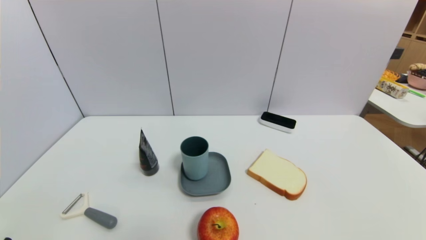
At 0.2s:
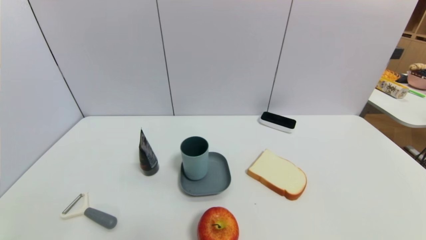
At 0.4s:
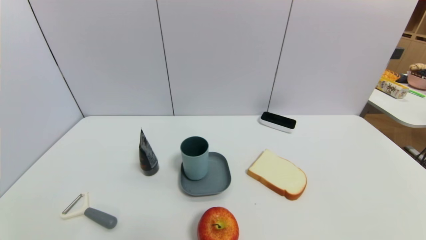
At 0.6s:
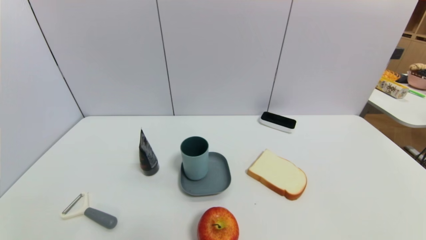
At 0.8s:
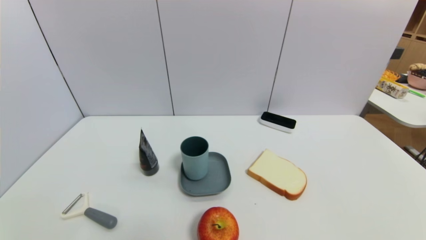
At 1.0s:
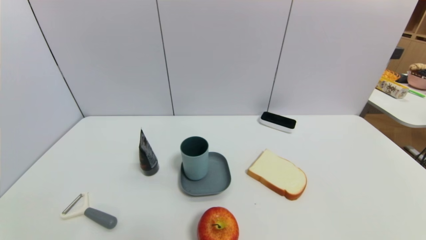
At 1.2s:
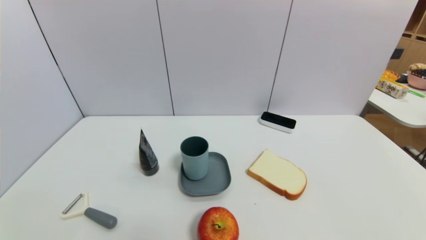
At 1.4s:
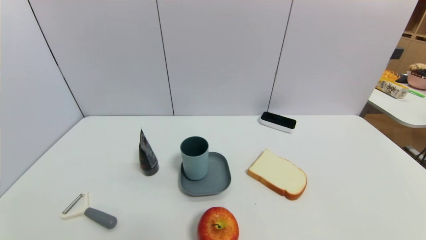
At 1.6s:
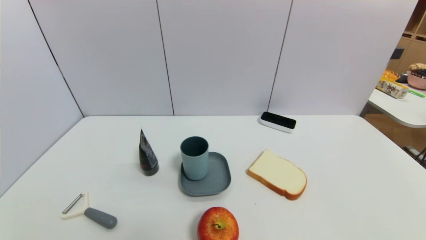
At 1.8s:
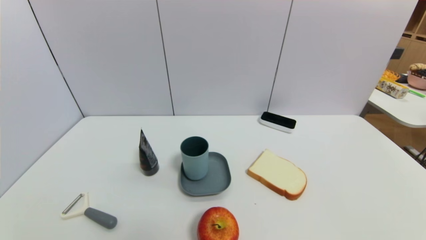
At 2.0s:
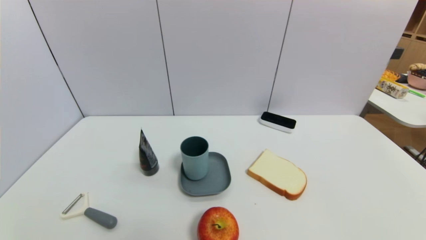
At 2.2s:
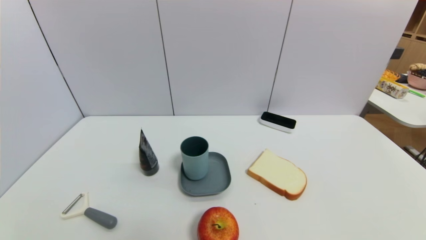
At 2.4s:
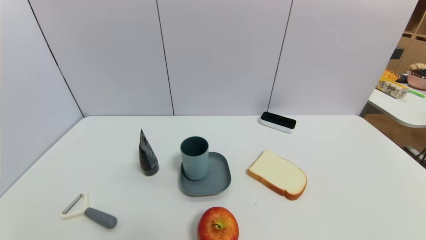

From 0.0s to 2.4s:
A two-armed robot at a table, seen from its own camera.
Task of the whole recording: use a gripper to pick the target object and place on the dish.
From 1.2s to 2.4s: The two grippers keep their place.

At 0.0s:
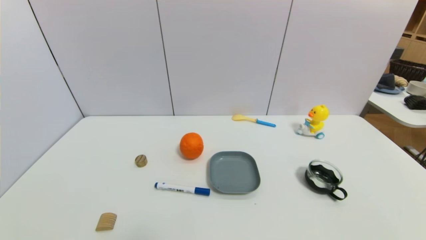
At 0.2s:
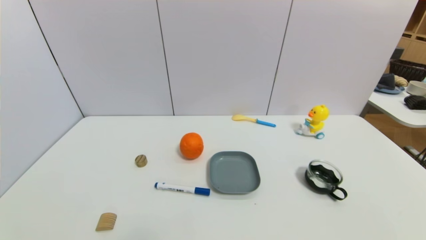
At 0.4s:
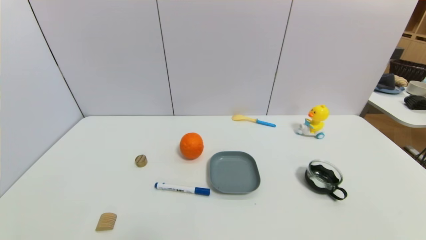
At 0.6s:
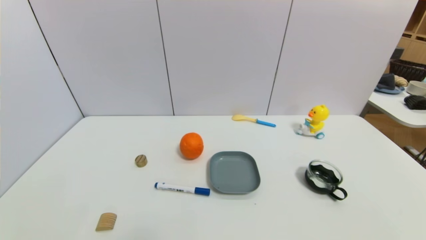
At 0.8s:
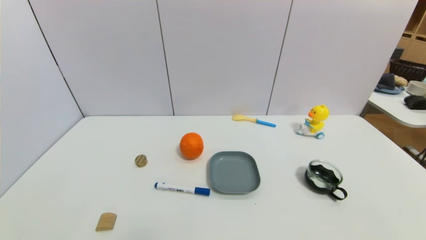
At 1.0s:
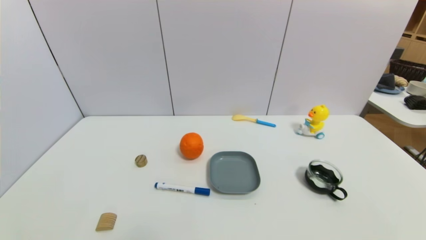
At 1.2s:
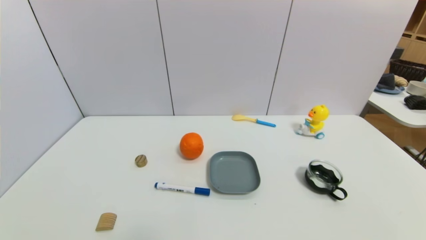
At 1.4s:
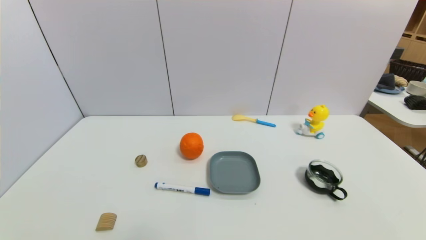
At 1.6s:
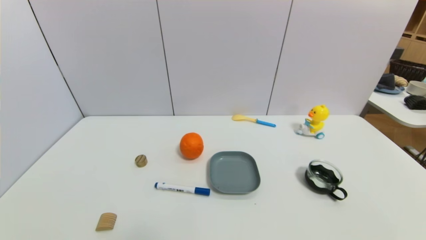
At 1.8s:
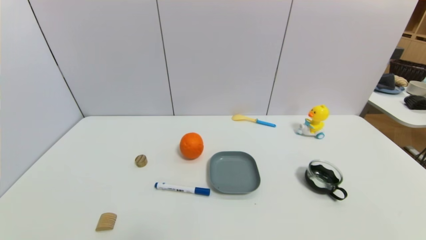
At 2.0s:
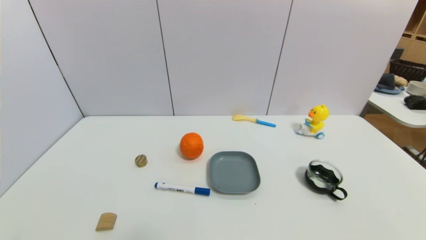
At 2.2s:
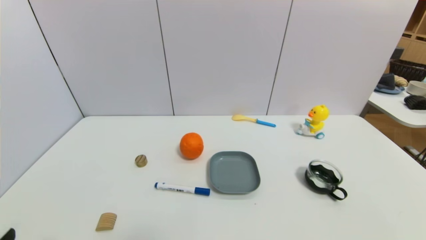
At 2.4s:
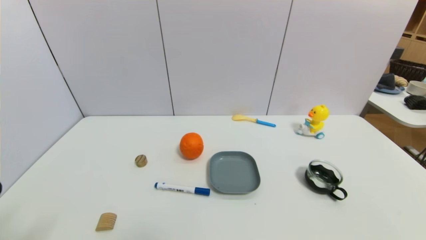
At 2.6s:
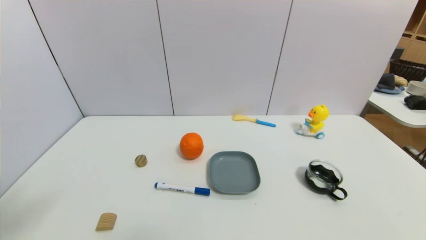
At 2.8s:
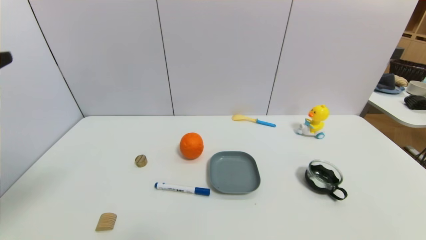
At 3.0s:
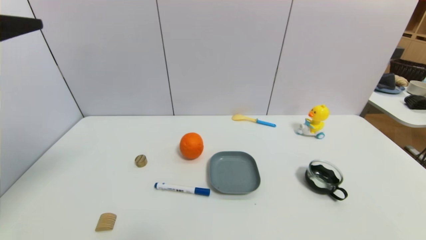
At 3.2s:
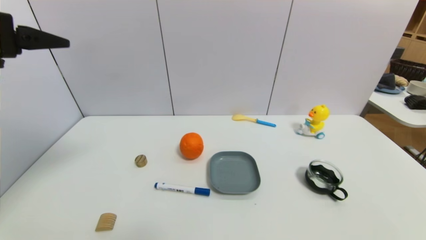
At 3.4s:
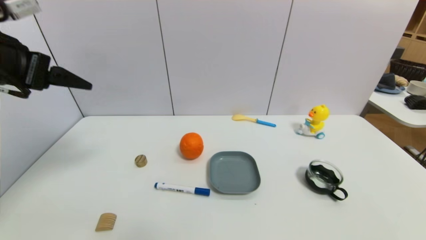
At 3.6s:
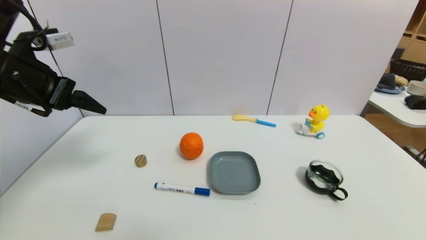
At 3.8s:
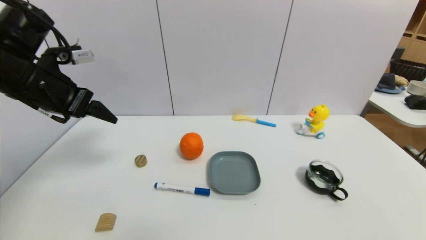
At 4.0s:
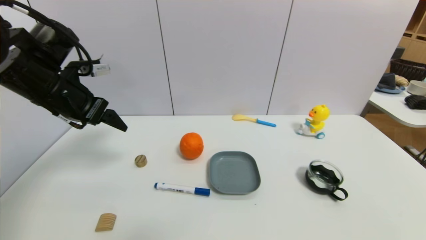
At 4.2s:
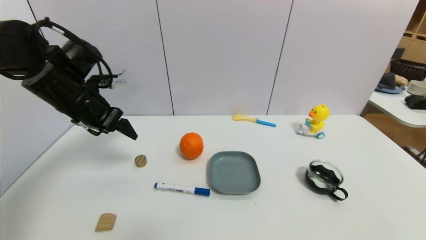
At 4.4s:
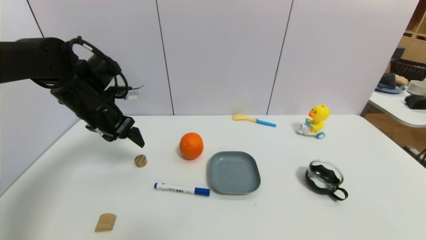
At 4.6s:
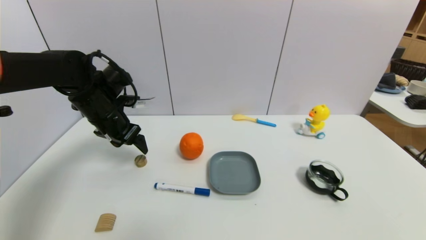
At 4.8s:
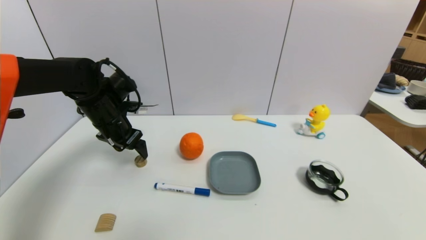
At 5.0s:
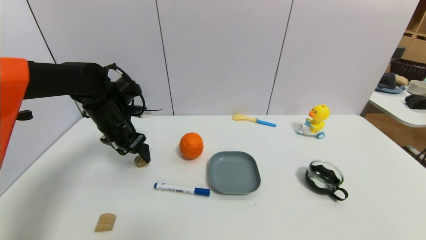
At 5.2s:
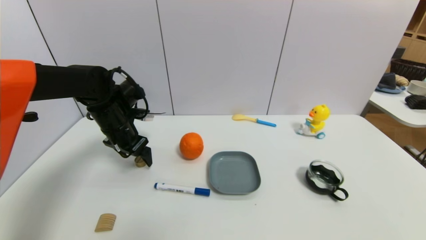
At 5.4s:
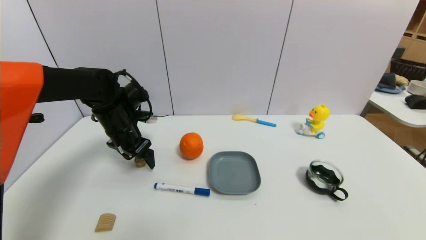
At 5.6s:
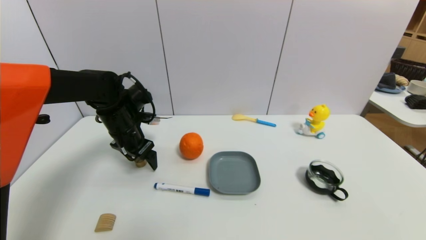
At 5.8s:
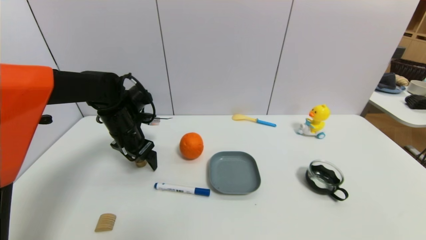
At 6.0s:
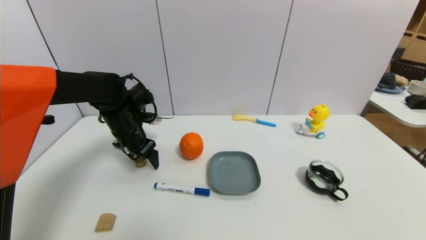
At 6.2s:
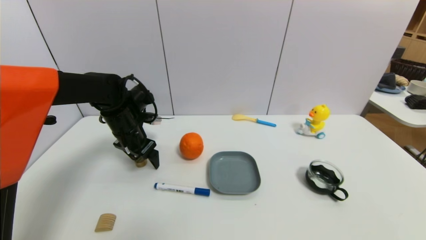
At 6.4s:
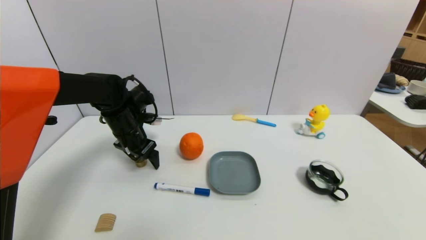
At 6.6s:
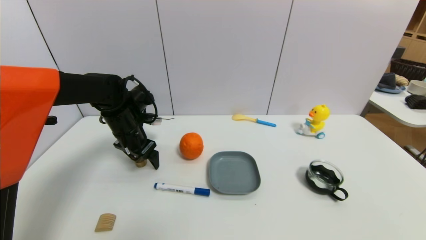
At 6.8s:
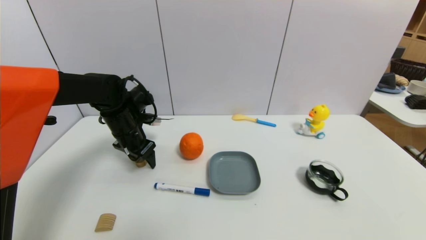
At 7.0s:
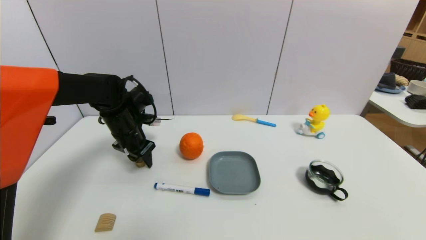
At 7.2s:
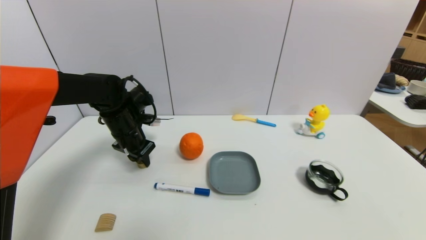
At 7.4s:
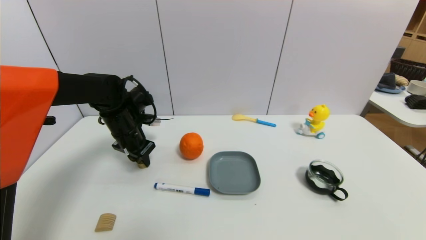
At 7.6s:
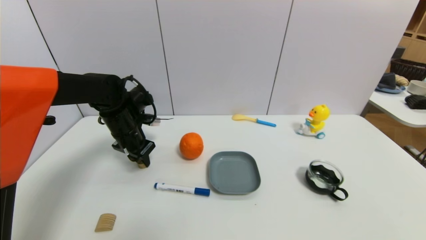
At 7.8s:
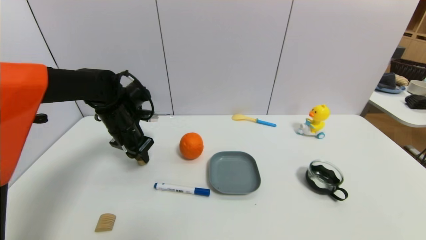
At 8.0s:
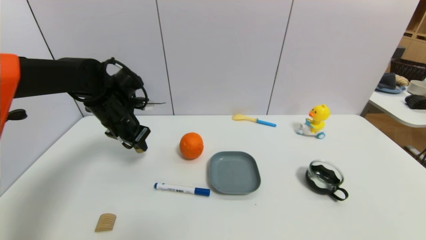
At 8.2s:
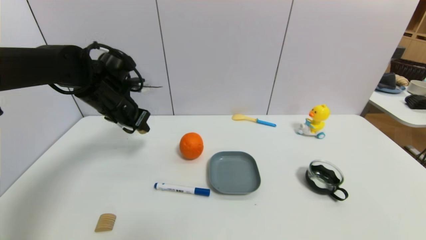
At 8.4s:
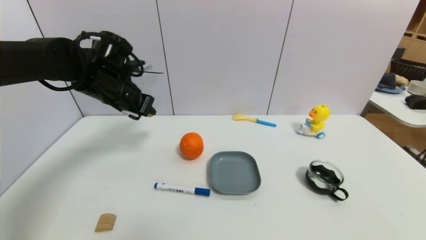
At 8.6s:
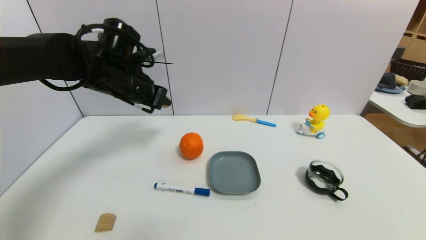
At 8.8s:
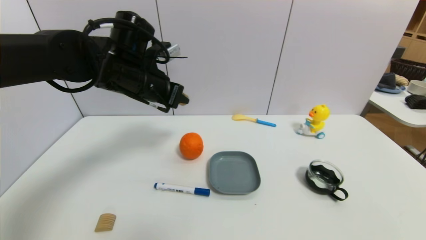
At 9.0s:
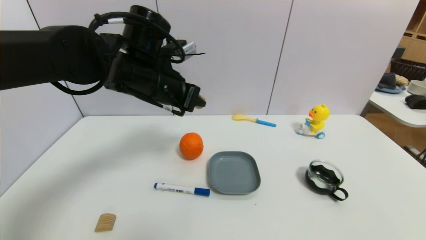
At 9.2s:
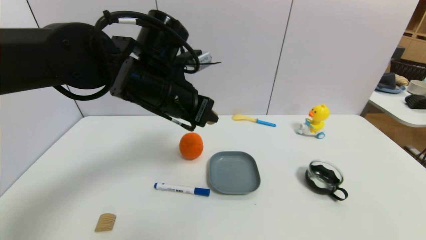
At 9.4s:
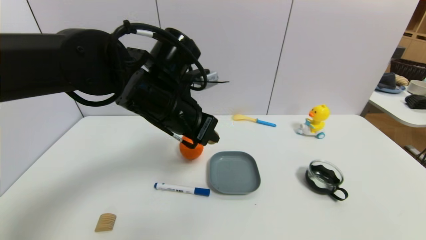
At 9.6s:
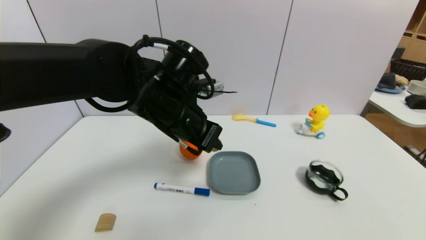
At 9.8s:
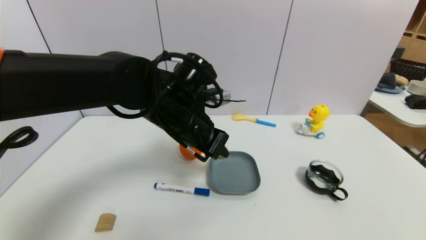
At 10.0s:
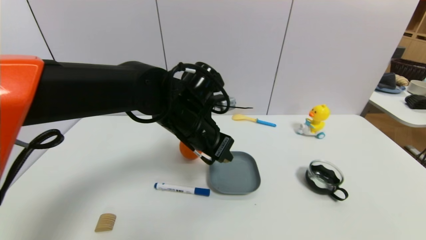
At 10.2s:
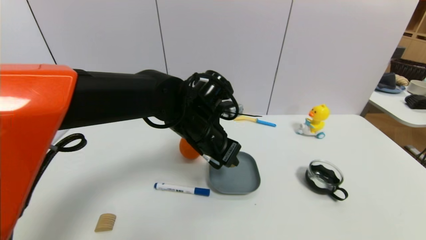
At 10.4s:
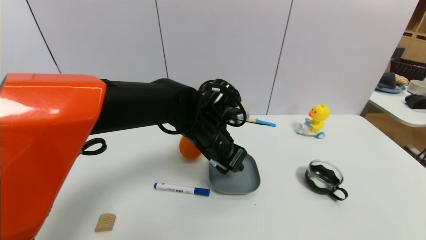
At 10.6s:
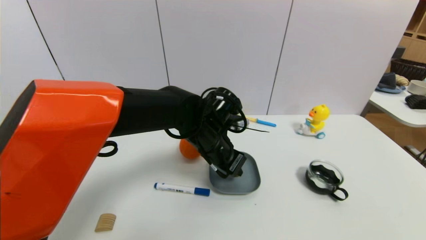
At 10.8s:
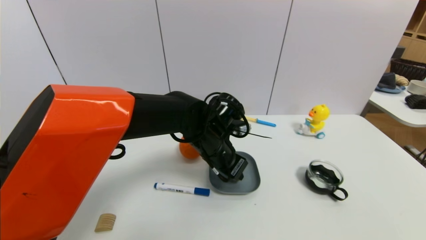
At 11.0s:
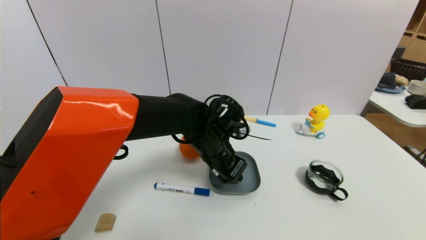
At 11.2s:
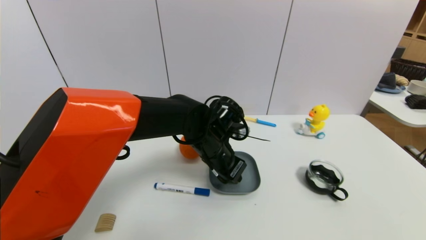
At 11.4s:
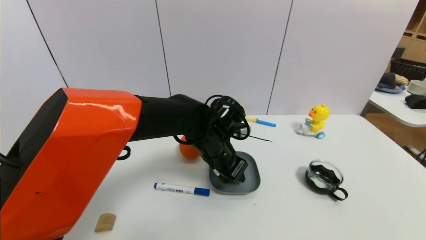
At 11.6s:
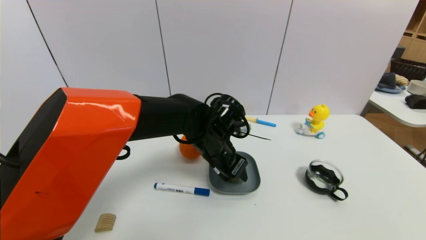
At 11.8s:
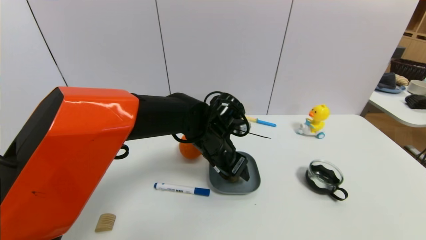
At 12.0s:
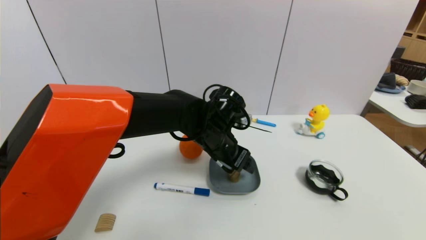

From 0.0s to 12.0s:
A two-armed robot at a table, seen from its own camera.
Task of the whole recording: use a gripper to pick the target object and place on the dish.
Step, from 0.0s to 7.2s: Grasp the round wooden block with the left gripper.
Step, from 7.4s to 11.6s: Place the round wooden block on the dish with the left gripper.
From 0.0s to 1.6s: Both grippers stay put.
From 1.6s to 3.0s: The left gripper shifts about 35 cm upward and forward.
From 3.0s to 4.4s: The left gripper heads forward and downward, covering roughly 25 cm.
From 4.4s to 6.0s: The left gripper moves downward, some 5 cm.
From 6.0s to 7.6s: The left gripper closes.
From 7.6s to 9.0s: The left gripper goes roughly 20 cm upward, to the right and backward.
From 9.0s to 10.4s: The left gripper shifts approximately 15 cm downward and to the right.
From 10.4s to 12.0s: The left gripper opens.

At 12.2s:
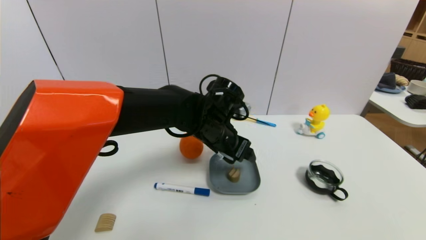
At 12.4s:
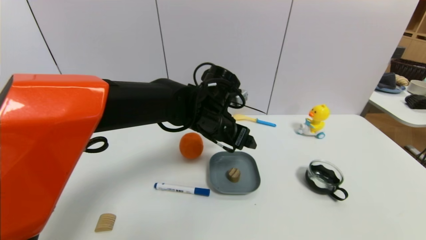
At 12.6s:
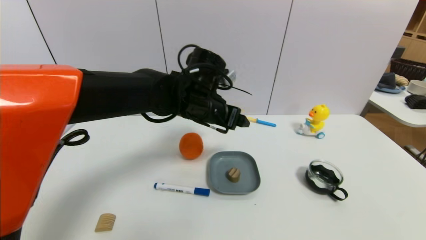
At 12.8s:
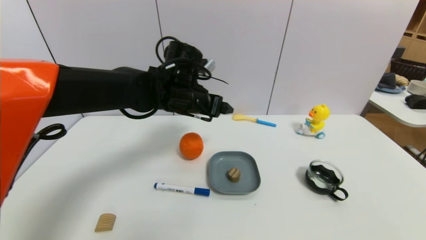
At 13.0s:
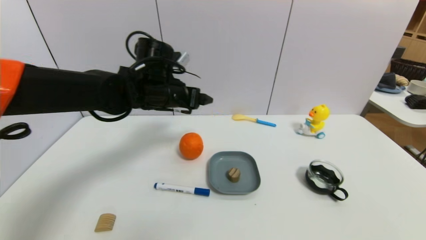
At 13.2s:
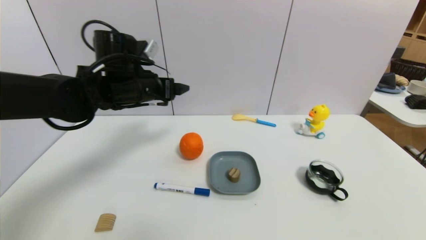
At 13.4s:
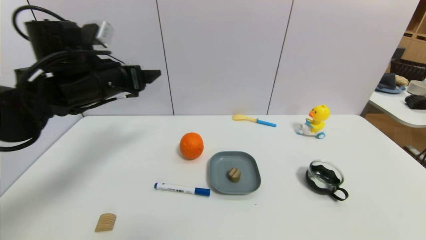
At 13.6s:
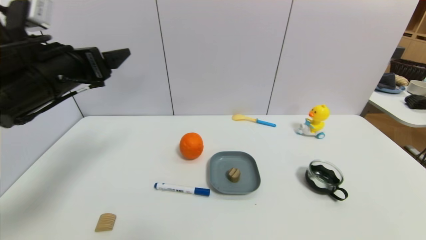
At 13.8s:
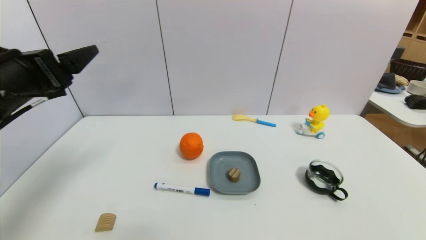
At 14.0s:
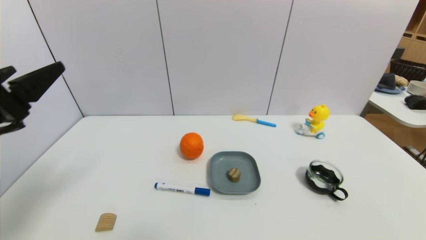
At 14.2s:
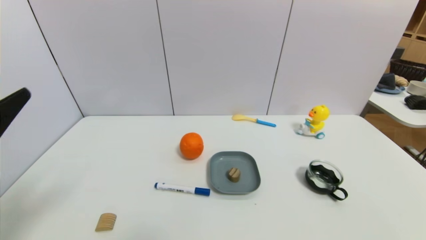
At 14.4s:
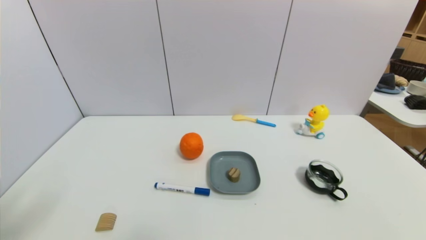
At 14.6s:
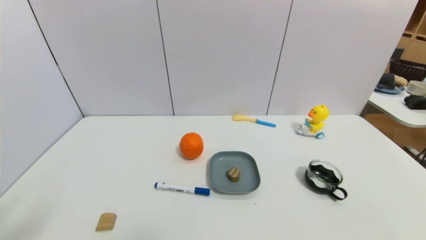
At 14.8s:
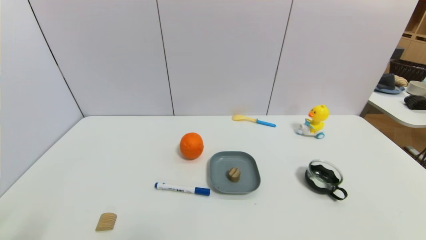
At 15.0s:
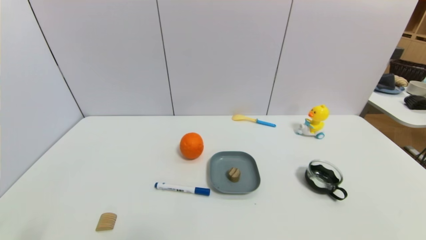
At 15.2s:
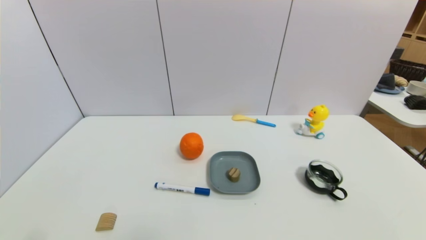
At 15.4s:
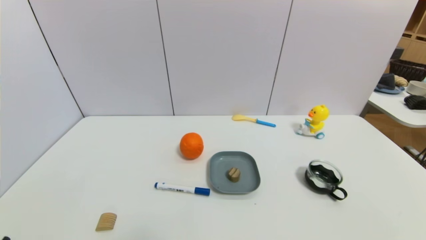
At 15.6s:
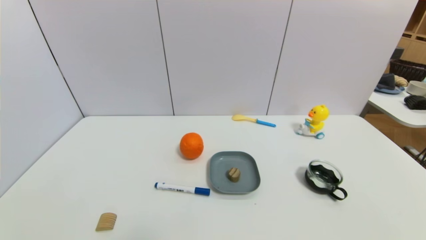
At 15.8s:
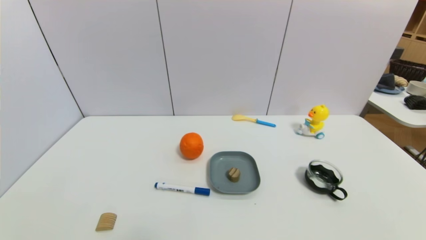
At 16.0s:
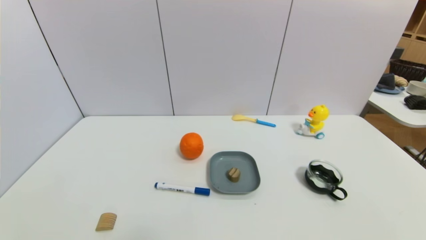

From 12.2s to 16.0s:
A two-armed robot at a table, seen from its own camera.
Task of the whole recording: use a gripper to pick the target object and place on the dish.
From 12.2s to 13.4s: The left gripper shifts approximately 25 cm to the left and upward.
From 13.4s to 14.8s: The left gripper heads backward, covering approximately 30 cm.
